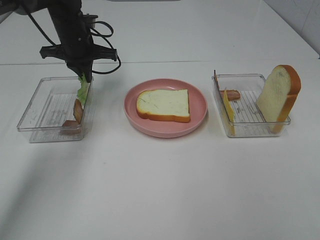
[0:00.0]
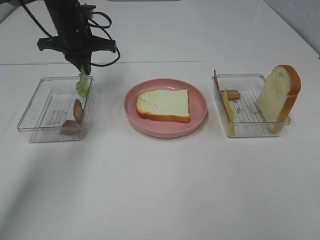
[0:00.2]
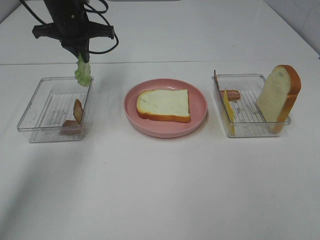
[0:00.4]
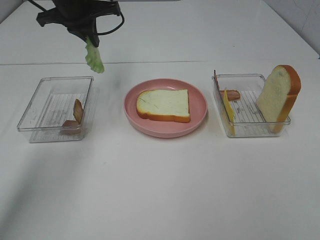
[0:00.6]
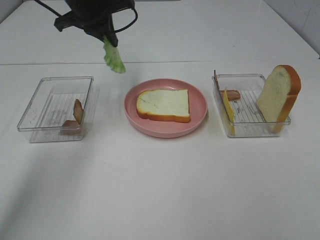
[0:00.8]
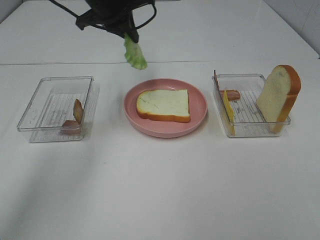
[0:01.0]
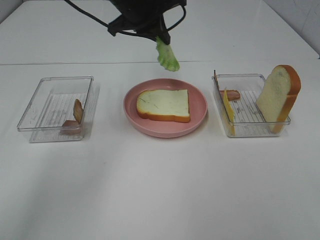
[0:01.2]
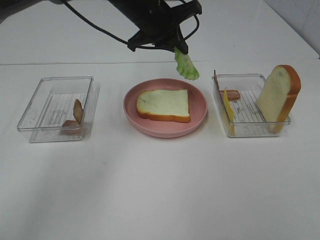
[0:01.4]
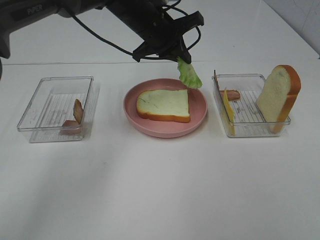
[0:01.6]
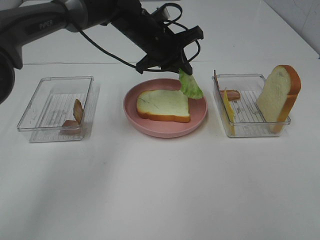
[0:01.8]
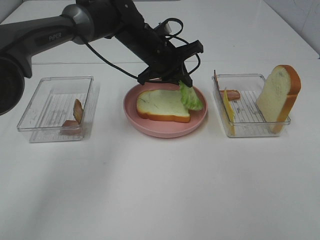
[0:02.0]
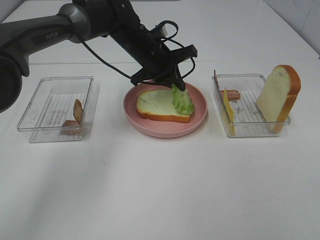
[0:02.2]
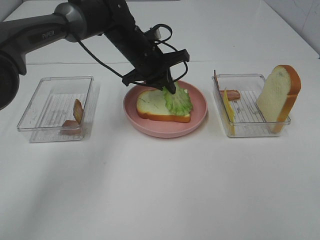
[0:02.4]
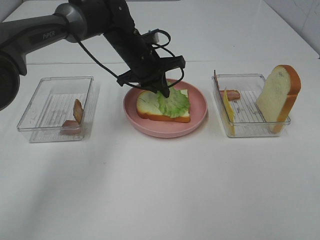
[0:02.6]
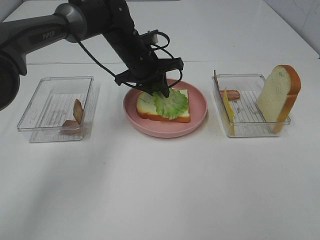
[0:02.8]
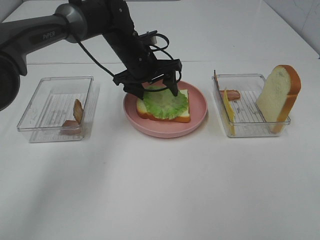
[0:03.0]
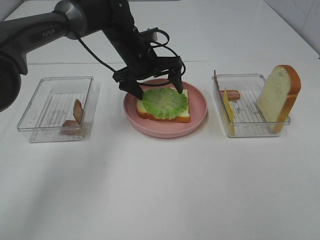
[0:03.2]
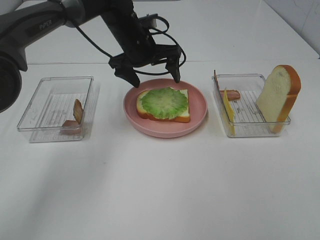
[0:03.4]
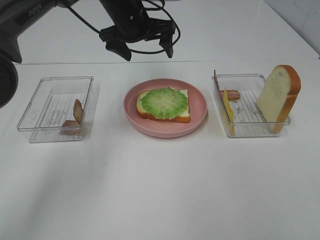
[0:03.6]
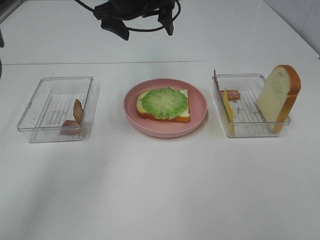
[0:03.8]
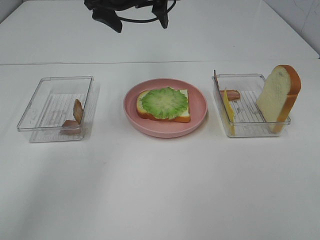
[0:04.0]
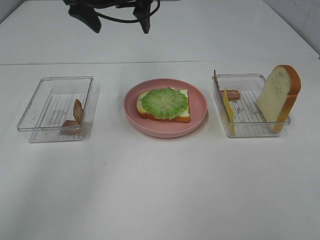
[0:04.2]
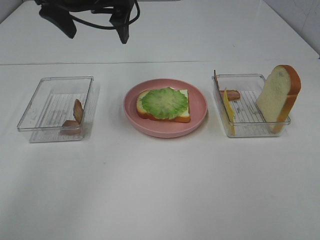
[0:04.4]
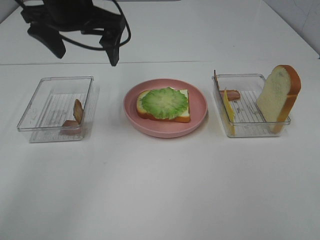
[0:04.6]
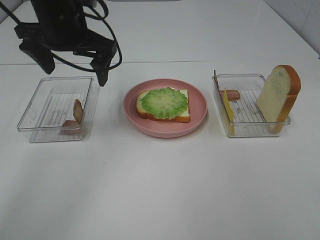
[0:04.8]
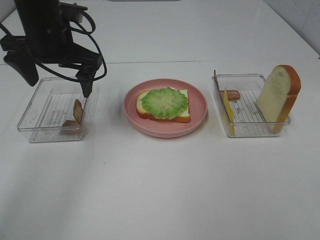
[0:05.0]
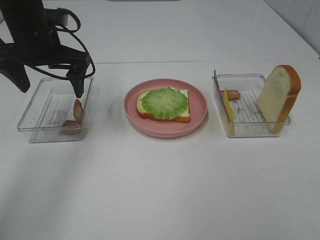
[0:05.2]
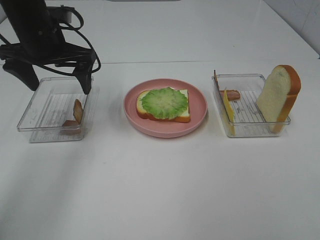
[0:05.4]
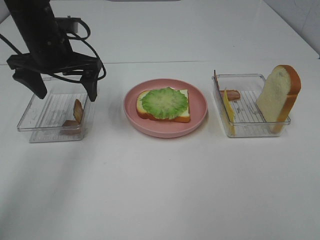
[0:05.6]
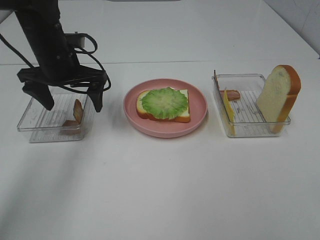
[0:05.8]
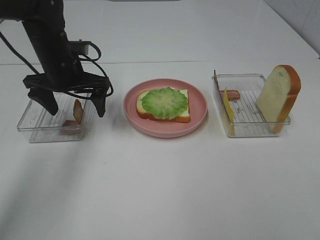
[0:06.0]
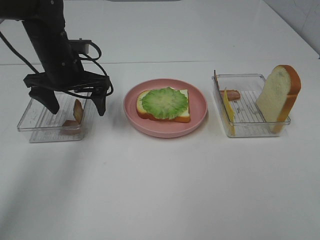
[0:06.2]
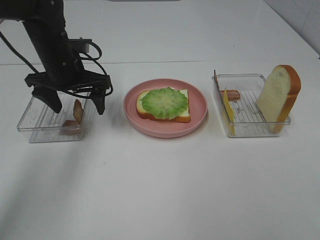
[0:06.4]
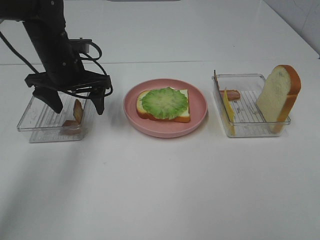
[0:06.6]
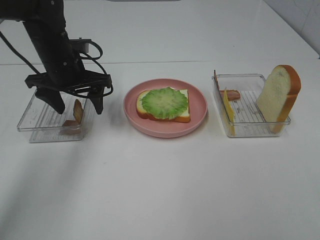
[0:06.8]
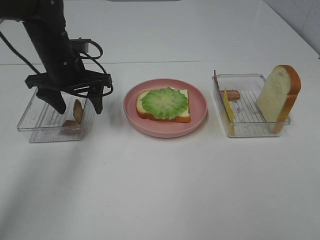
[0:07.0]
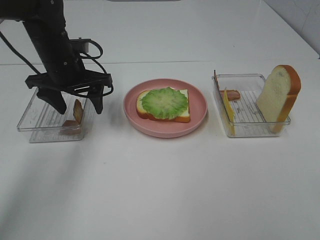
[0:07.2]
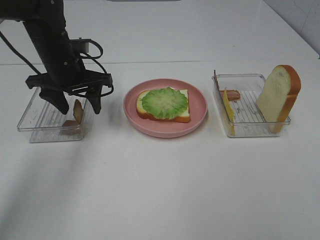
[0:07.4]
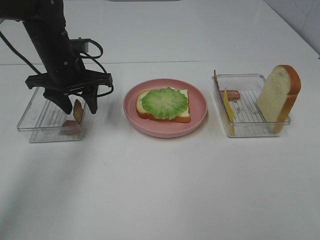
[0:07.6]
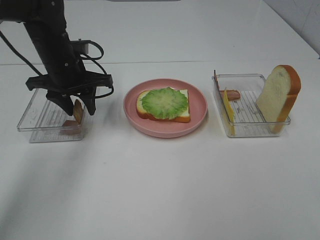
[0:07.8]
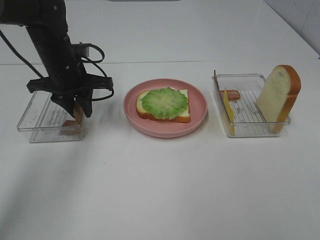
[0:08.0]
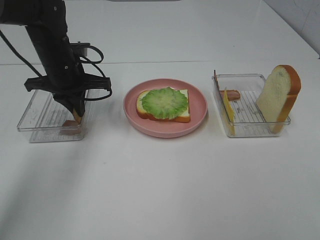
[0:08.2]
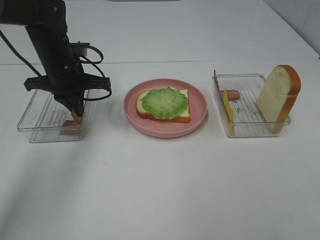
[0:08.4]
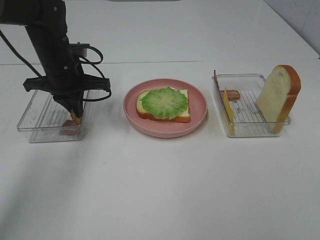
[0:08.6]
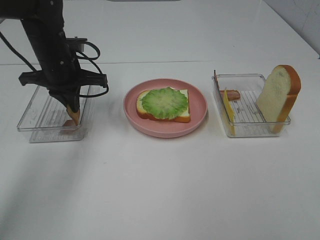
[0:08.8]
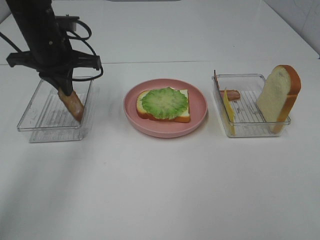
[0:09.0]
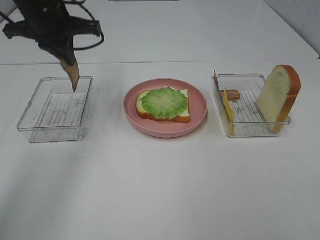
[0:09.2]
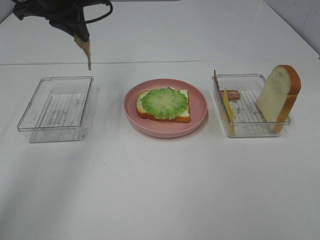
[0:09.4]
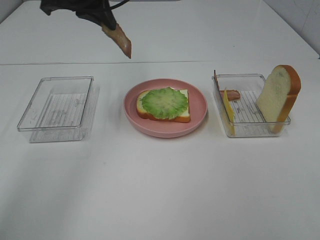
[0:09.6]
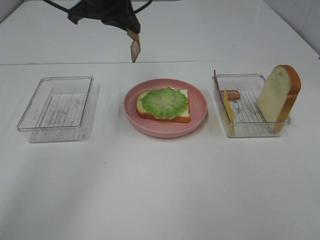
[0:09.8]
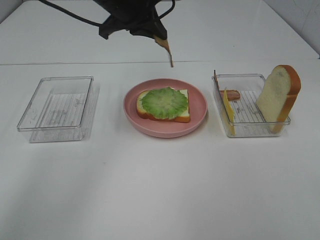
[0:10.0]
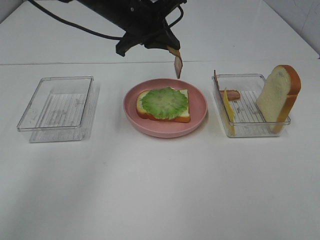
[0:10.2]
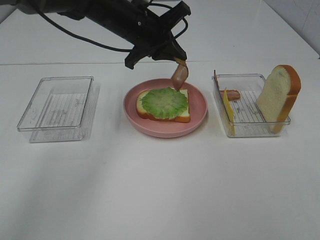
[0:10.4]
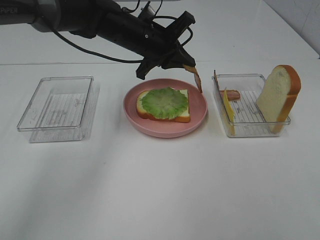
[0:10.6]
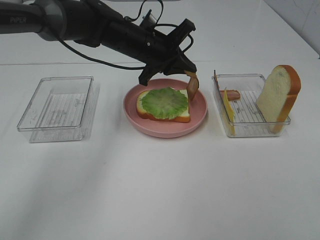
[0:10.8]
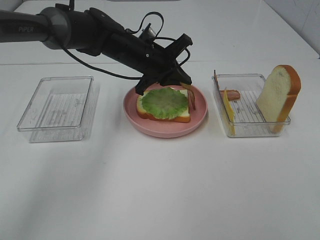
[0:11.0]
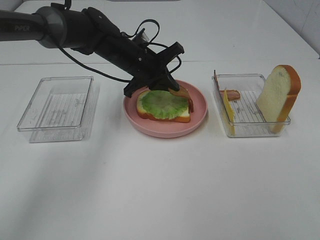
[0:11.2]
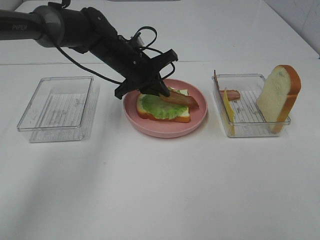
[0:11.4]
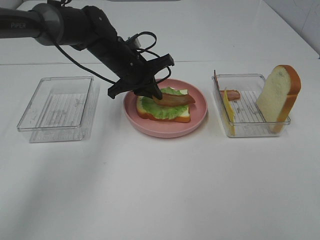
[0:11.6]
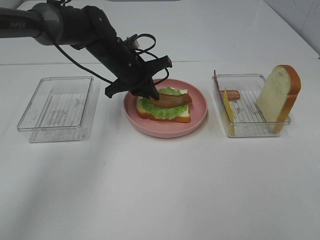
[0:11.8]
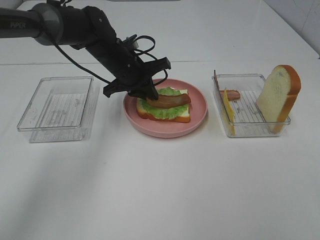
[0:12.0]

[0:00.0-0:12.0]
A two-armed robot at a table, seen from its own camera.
Task of the whole recording: Make sandwiches.
Step, 0:00.0 to 0:03.4: Left hand:place the lettuce slice on the bread slice.
Step, 0:03.6 to 0:08.4: Left hand:grab the bacon.
0:00.0 to 0:01.6: The left gripper travels to the right by approximately 15 cm.
0:01.6 to 0:03.0: The left gripper is displaced downward by some 5 cm, and opens.
0:03.0 to 0:04.4: The left gripper shifts about 20 cm upward, backward and to the left.
0:04.4 to 0:06.0: The left gripper goes about 15 cm downward.
0:06.0 to 0:07.6: The left gripper closes.
0:07.6 to 0:09.0: The left gripper closes.
0:09.0 to 0:10.4: The left gripper travels to the right by roughly 15 cm.
0:10.4 to 0:12.0: The left gripper is displaced downward by some 10 cm.

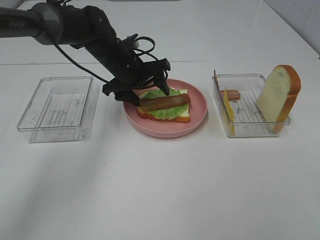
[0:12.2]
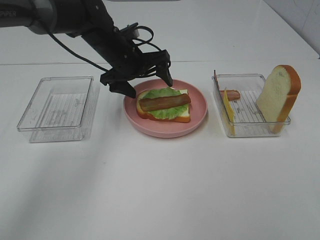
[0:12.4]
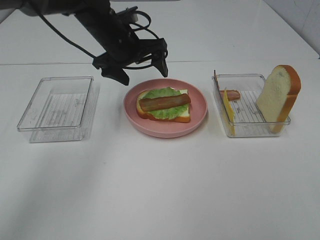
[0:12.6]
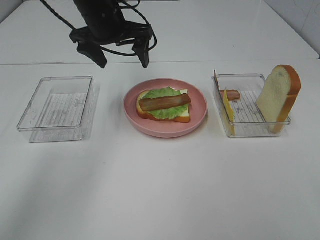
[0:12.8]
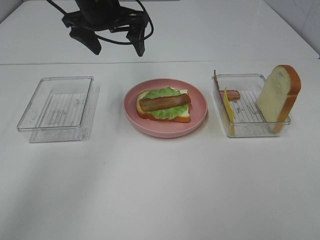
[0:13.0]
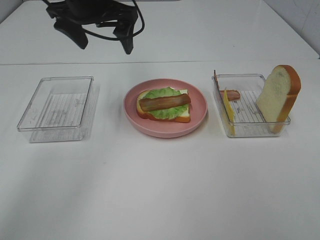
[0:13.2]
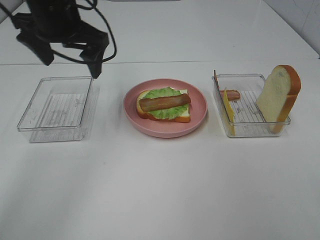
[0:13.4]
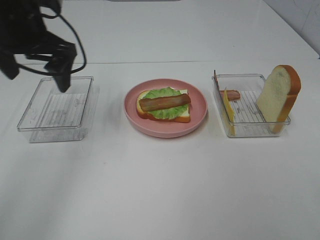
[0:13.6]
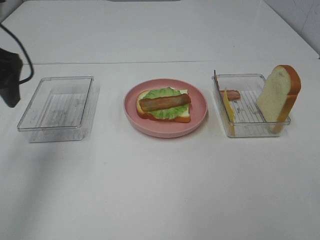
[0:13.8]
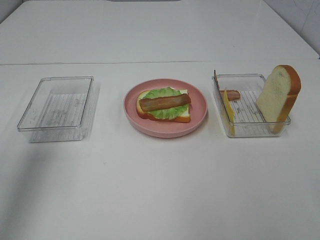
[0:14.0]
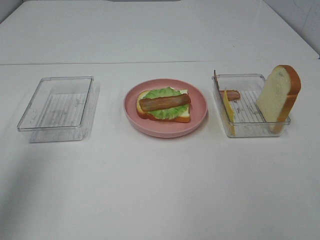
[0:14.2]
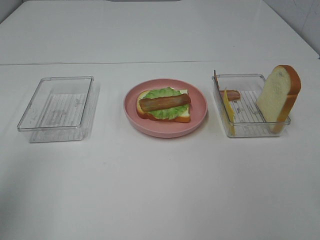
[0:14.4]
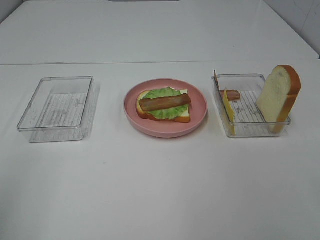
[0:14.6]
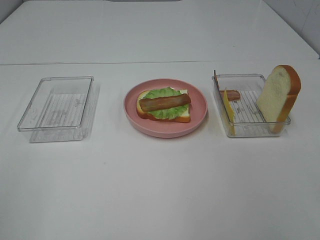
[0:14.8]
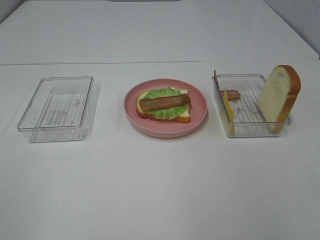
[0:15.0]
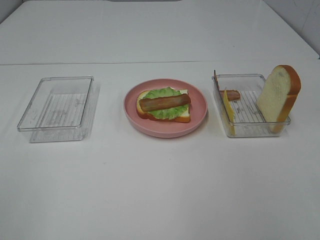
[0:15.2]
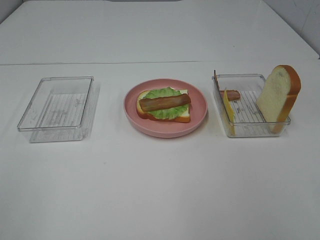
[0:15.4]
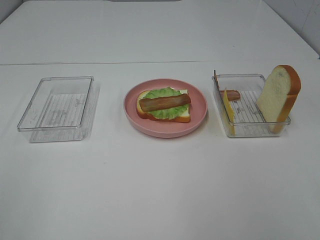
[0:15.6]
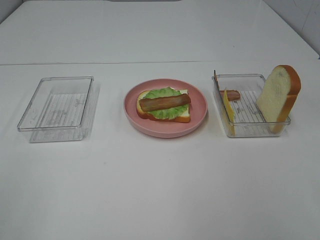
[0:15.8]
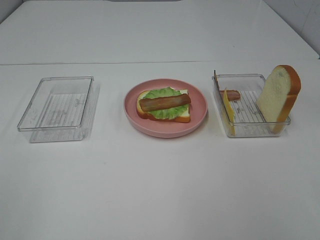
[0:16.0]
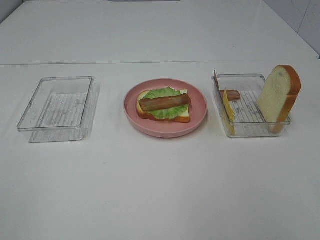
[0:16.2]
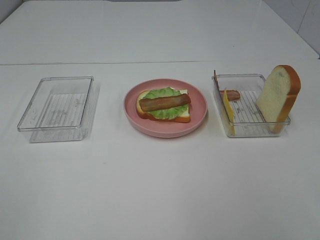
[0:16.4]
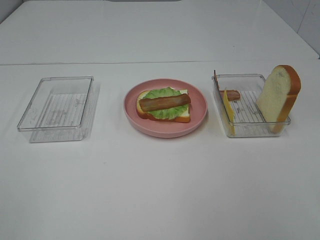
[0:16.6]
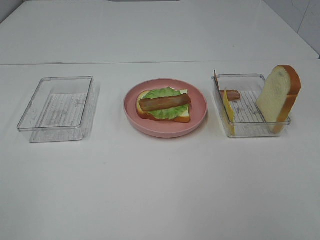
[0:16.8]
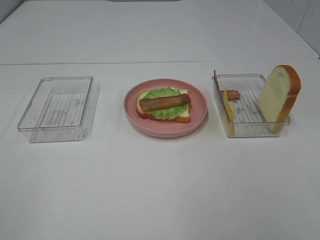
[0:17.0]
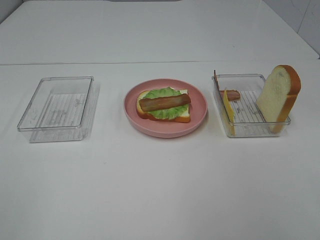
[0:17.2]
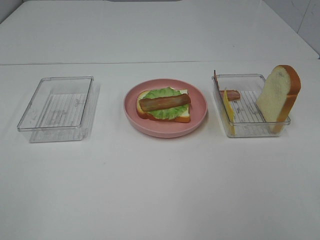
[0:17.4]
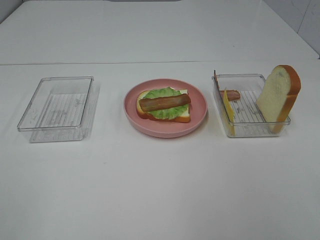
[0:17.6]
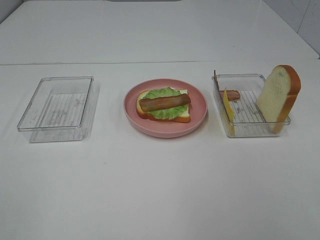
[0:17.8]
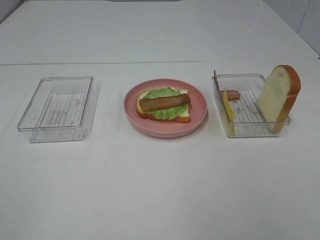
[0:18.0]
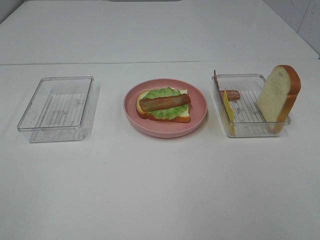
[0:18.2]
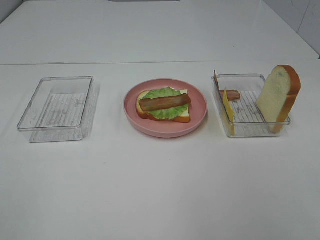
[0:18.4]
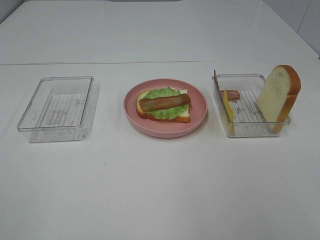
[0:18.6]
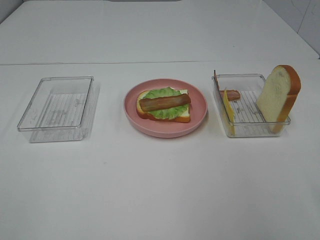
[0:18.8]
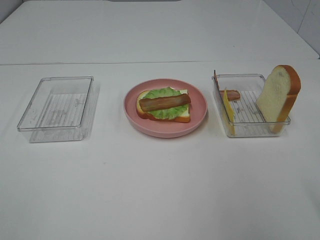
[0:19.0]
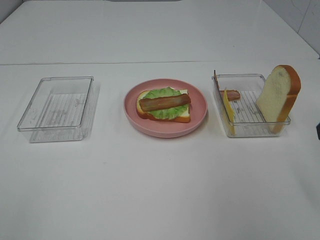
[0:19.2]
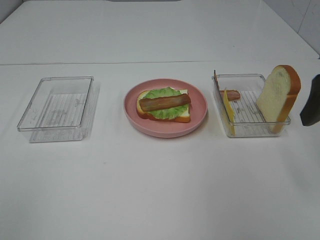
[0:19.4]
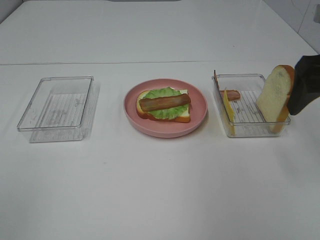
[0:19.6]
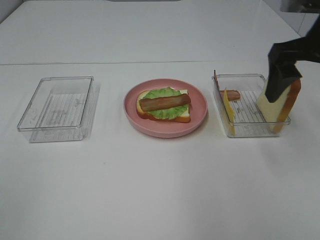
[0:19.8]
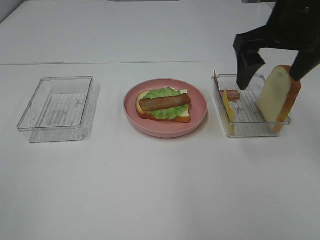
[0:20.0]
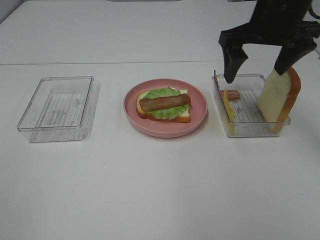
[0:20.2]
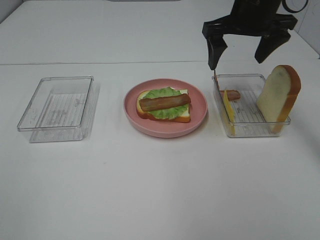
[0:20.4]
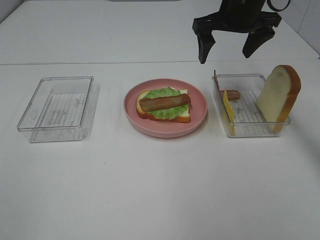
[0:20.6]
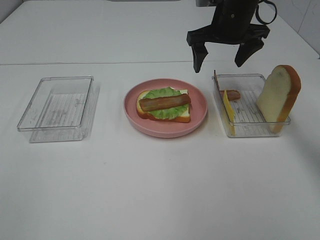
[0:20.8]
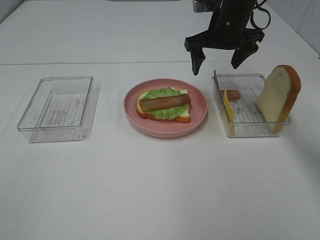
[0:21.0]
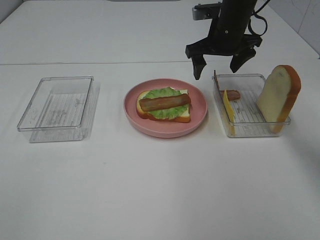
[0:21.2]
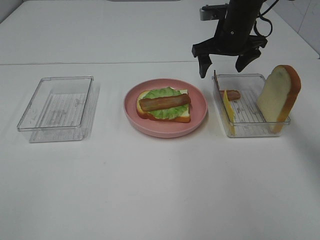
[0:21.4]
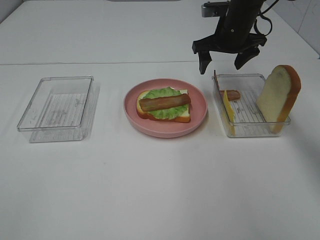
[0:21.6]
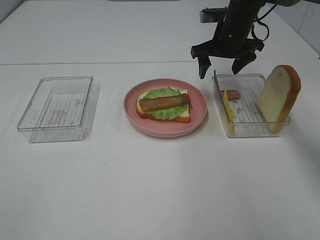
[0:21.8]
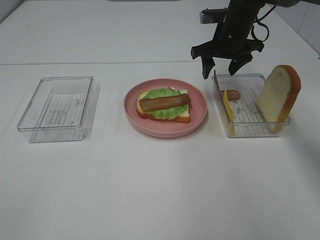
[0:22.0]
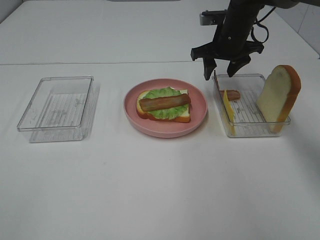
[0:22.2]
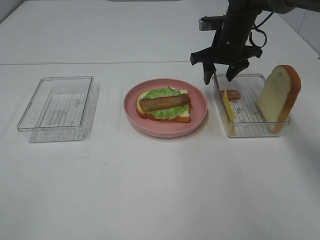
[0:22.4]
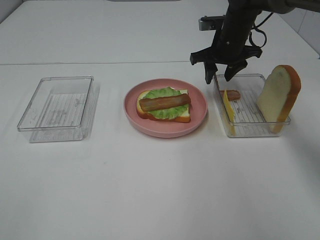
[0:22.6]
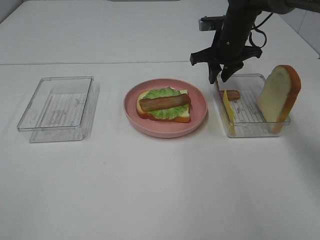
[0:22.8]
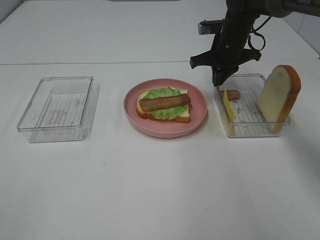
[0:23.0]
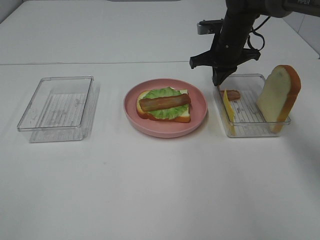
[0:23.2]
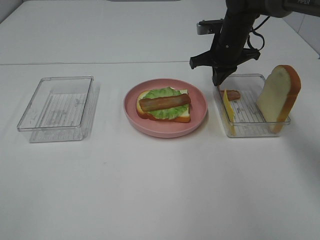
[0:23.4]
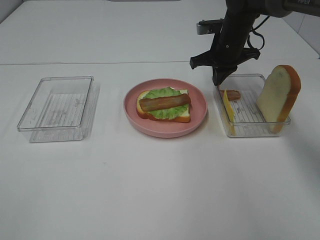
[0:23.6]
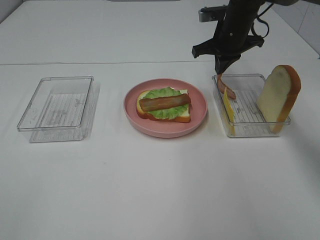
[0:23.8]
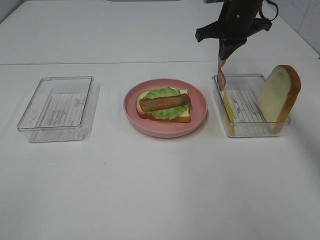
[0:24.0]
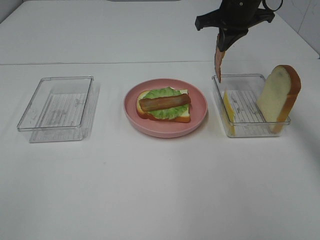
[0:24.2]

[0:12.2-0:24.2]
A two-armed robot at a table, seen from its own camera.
Task of the whole recording: Make sandwiches.
Step, 0:12.4 to 0:23.6: Right hand:grab the bacon.
0:12.2 to 0:13.8: The left gripper goes approximately 30 cm to the left, upward and backward.
0:13.8 to 0:15.2: The left gripper heads backward, covering some 30 cm.
0:16.6 to 0:18.2: Neither gripper changes place.
0:18.2 to 0:19.8: The right gripper heads forward, covering roughly 30 cm.
0:19.8 to 0:21.2: The right gripper shifts roughly 20 cm forward, downward and to the left.
0:21.2 to 0:22.6: The right gripper closes.
0:22.6 to 0:24.2: The right gripper shifts roughly 10 cm upward, and closes up.
